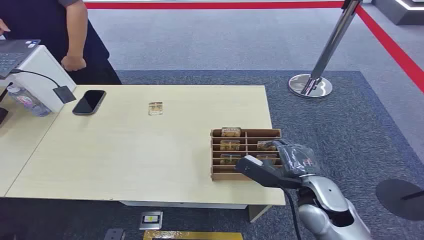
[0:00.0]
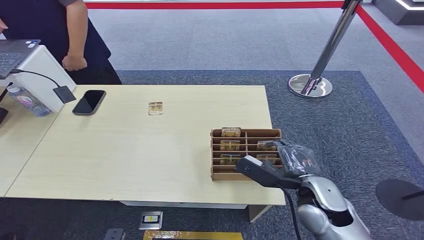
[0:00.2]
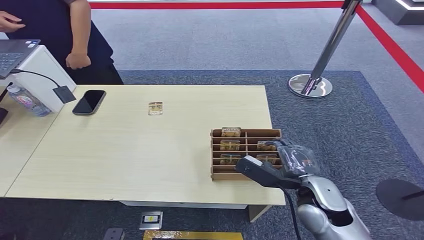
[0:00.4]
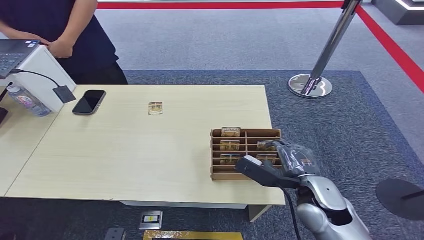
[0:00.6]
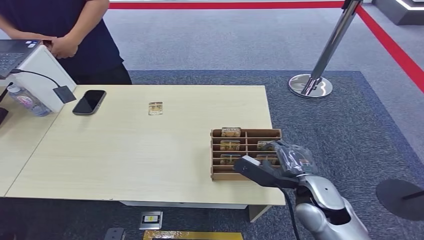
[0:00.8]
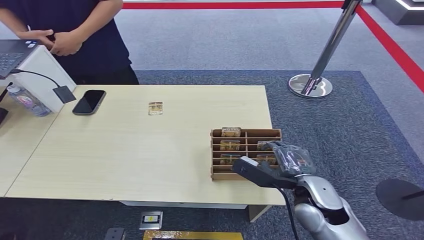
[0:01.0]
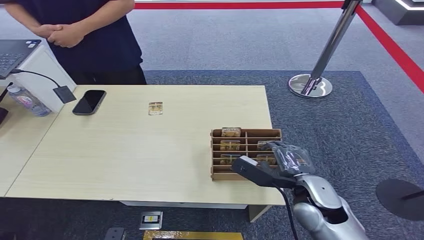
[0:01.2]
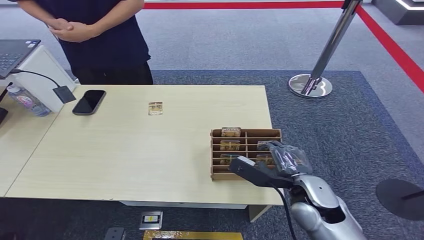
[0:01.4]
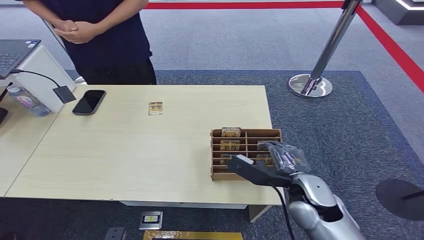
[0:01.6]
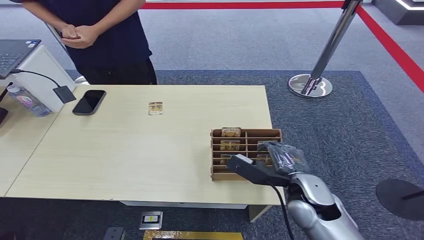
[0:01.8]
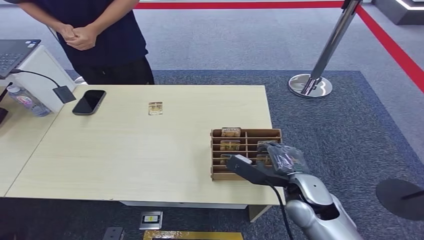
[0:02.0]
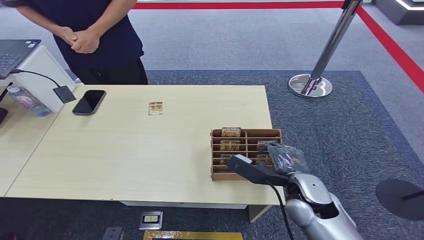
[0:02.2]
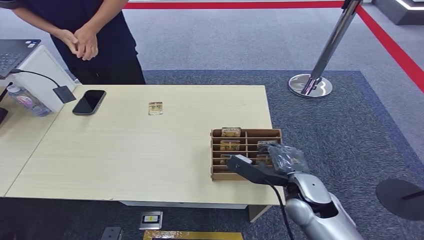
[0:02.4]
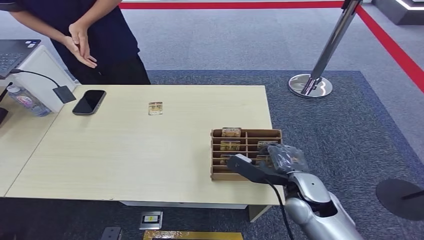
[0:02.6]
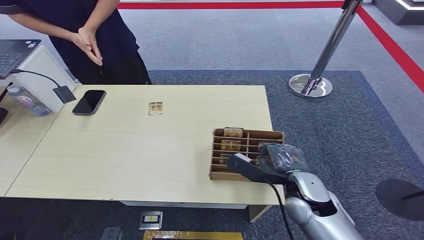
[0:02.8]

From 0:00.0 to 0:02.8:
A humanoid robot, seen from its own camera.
Task of the whole recording: Pick up the card and hand it over to the target person.
Step, from 0:00.0 to 0:02.8: Pick up the key card from the card box.
From 0:01.4 to 0:02.8: The hands move only a little.
